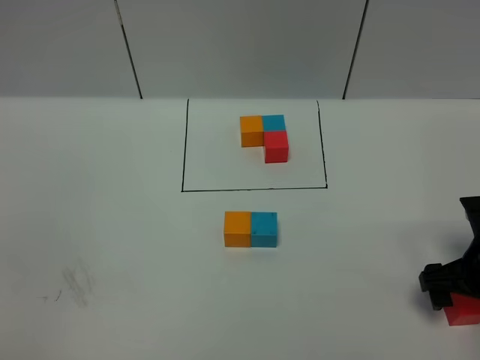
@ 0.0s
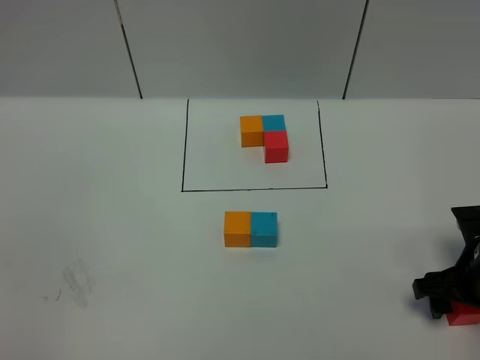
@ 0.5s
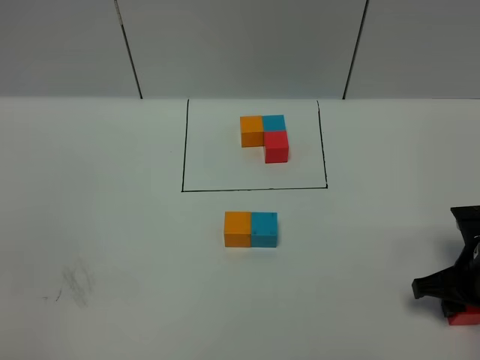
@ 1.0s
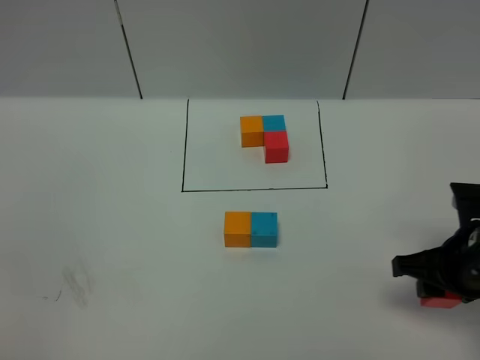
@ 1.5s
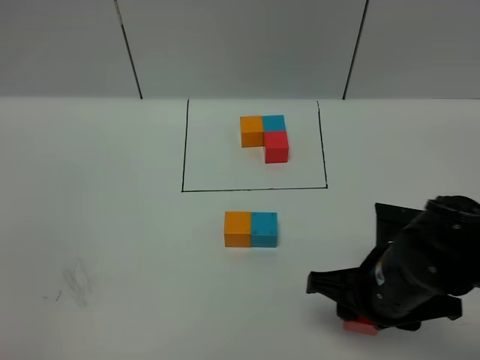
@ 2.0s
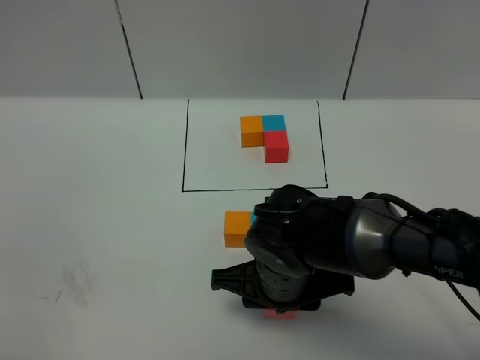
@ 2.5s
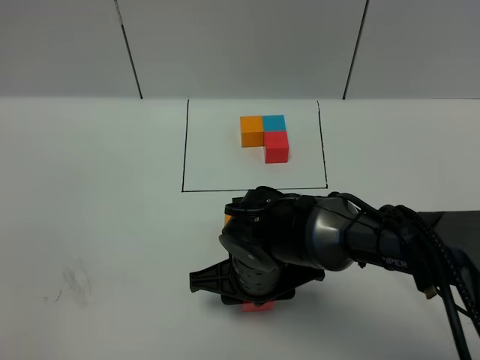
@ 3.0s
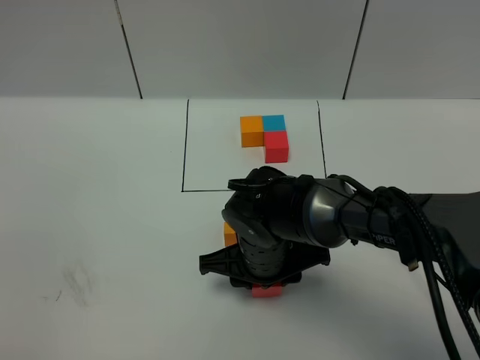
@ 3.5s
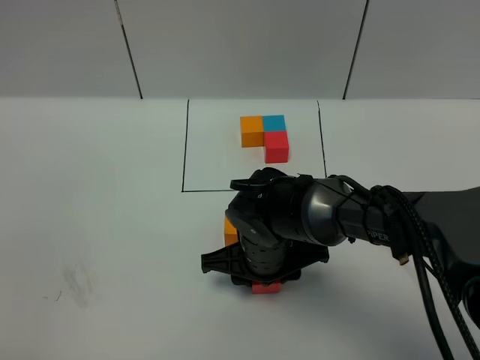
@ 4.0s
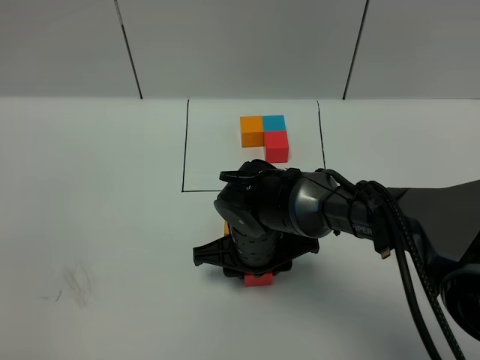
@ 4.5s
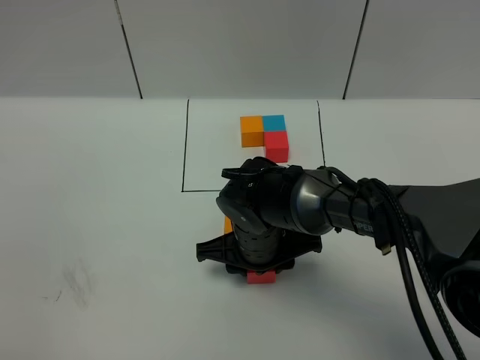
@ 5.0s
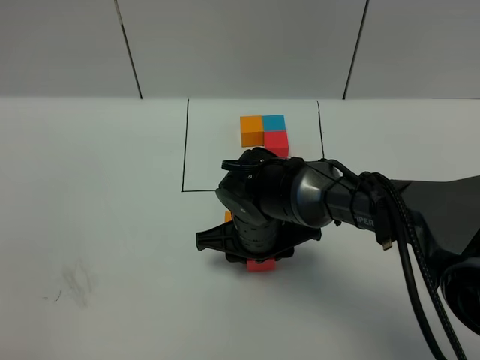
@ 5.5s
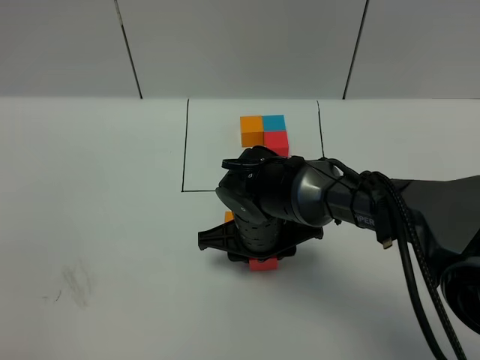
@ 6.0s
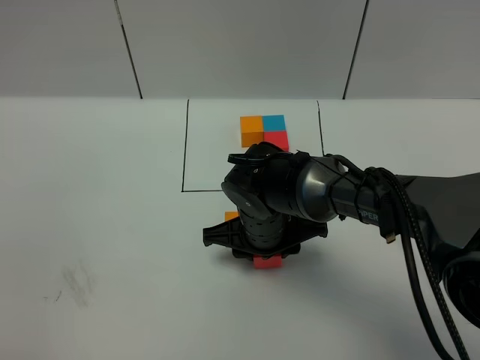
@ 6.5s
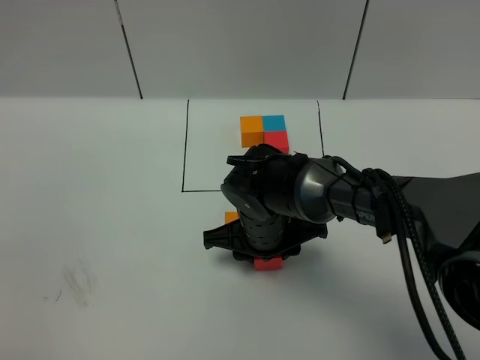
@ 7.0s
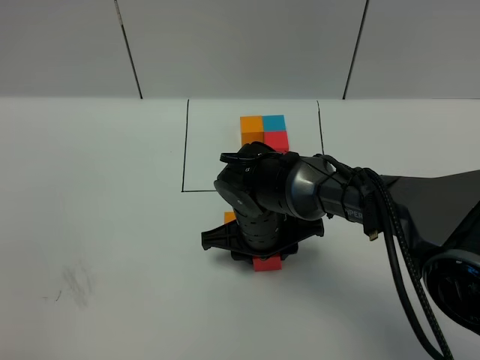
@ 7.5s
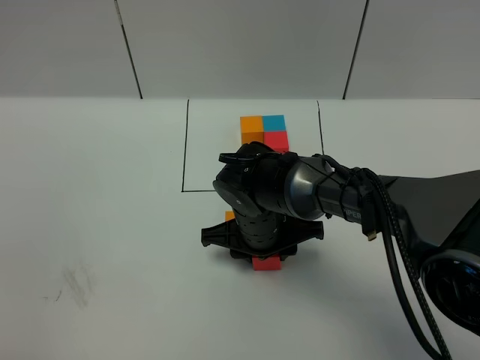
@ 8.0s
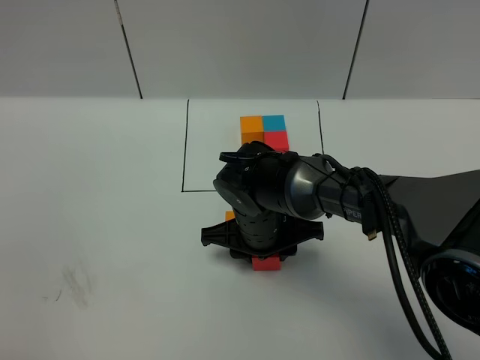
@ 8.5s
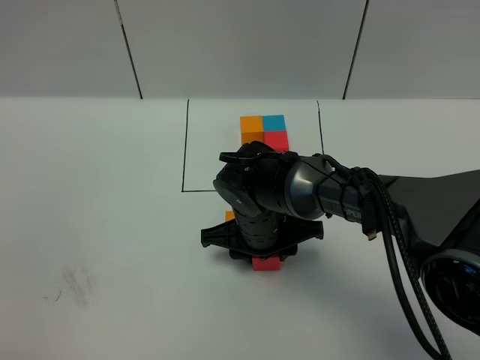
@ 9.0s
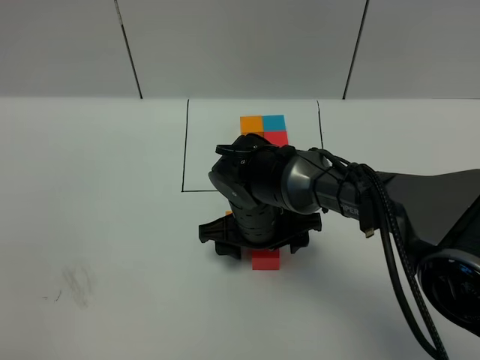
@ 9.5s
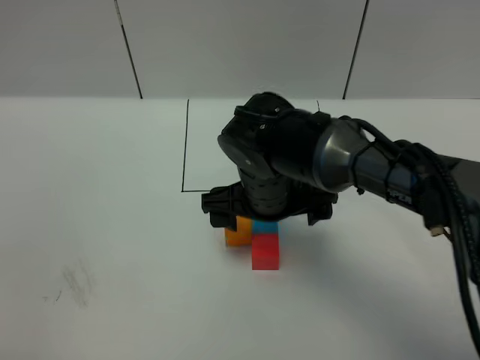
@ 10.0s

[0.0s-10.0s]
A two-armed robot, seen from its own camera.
Task of the whole recording: According to the building block template in front, assemble the scattered blocks together.
0.0s to 2.0s: The right gripper moves to the left, approximately 15 cm, and closes.
2.0s to 4.0s: The right gripper shifts some 15 cm to the left, forward and downward.
4.0s to 6.0s: The grippers move only a little.
6.0s to 8.0s: Neither gripper changes place.
8.0s to 10.0s: The right gripper is displaced upward by some 10 cm, and opens up.

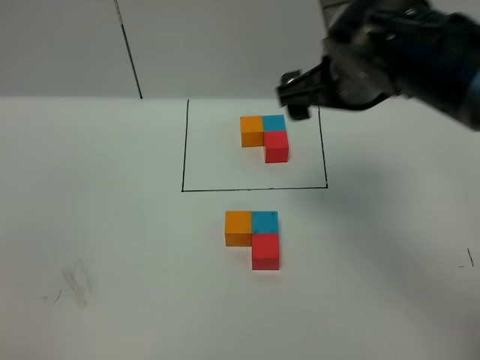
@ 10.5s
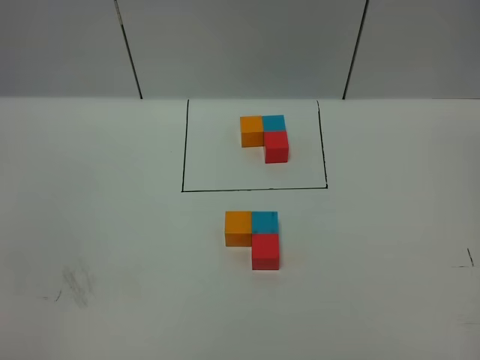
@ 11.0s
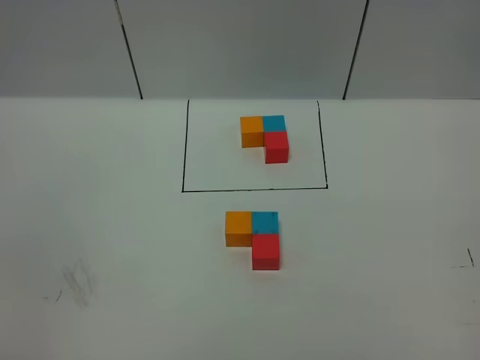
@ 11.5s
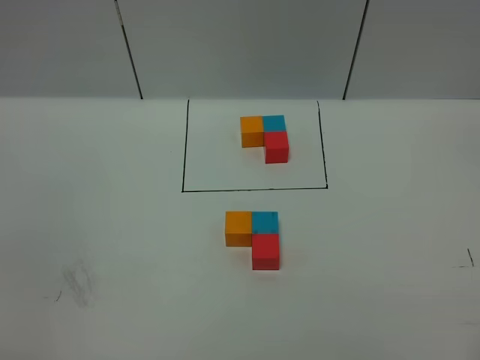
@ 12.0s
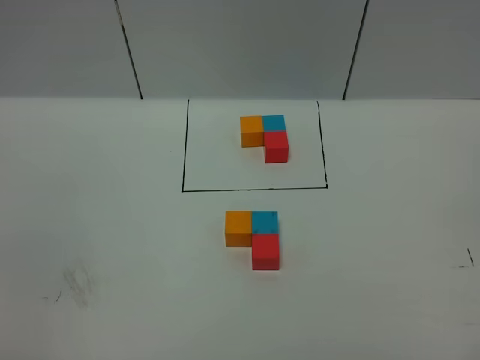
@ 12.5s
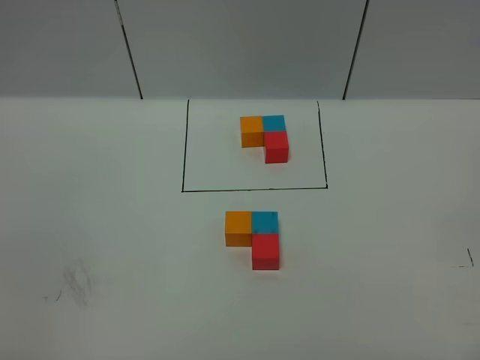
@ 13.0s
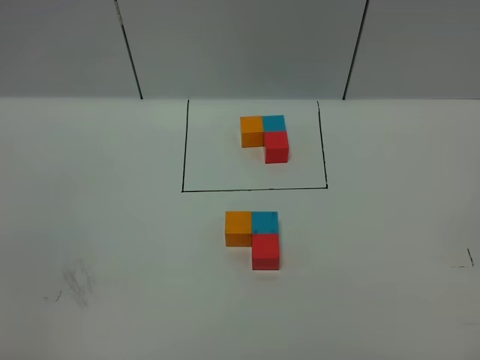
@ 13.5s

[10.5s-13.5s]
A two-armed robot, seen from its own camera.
Task of the whole recording: According to the building block template in front, assemble the scattered blocks together.
10.5s to 12.0s: The right gripper moves backward and to the right, about 40 cm.
